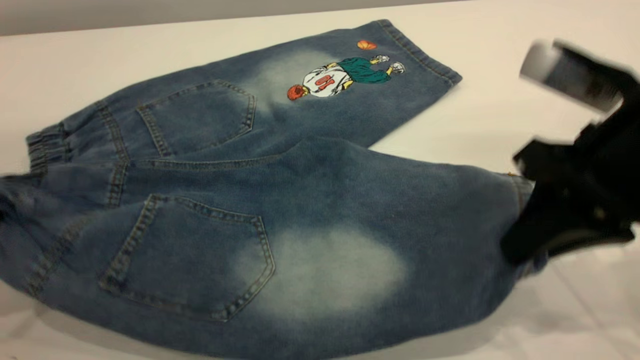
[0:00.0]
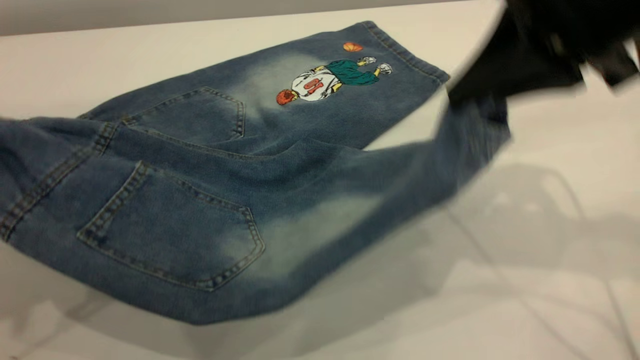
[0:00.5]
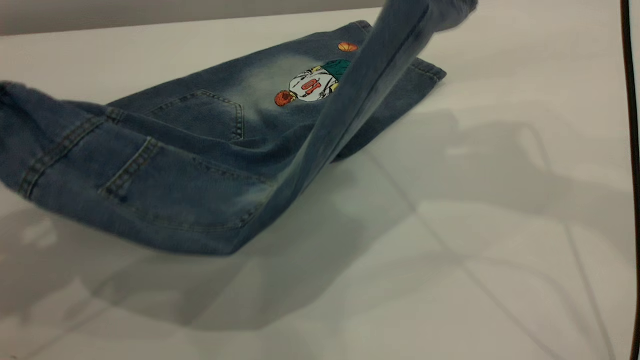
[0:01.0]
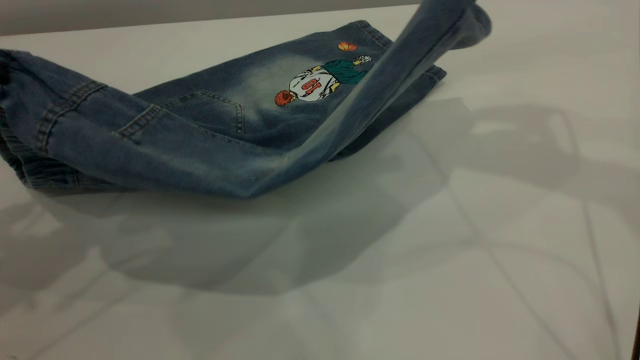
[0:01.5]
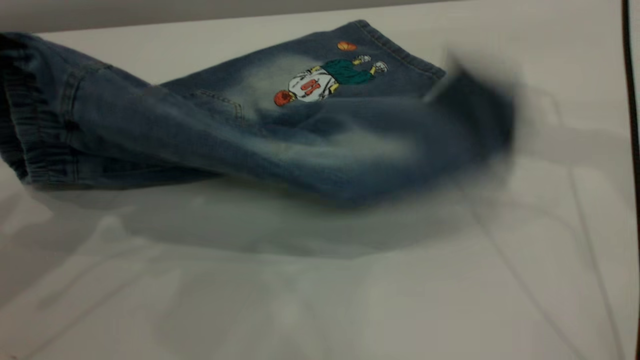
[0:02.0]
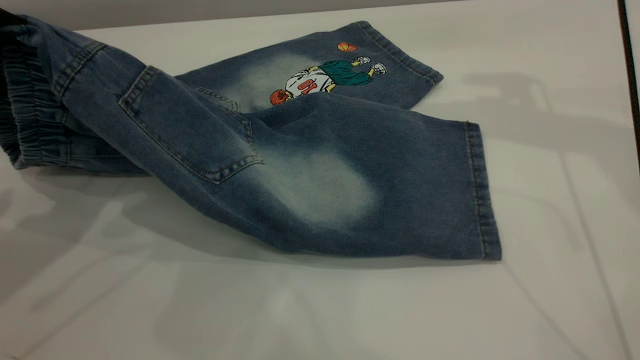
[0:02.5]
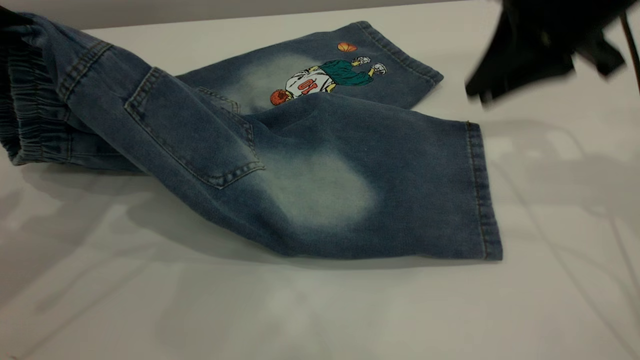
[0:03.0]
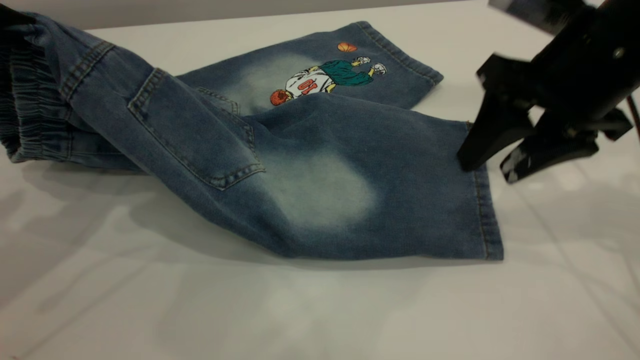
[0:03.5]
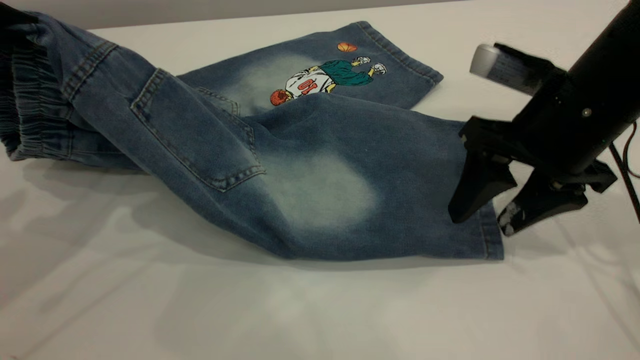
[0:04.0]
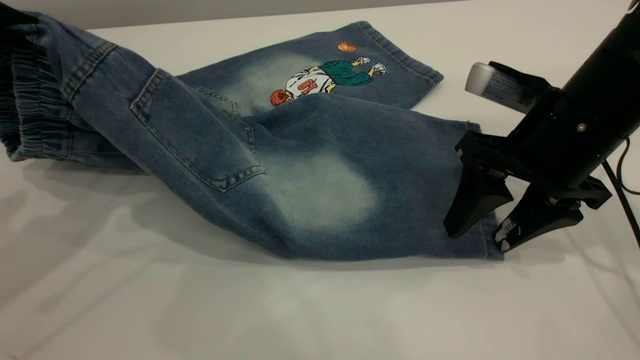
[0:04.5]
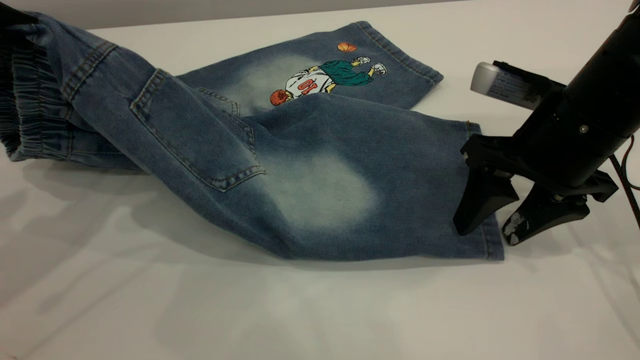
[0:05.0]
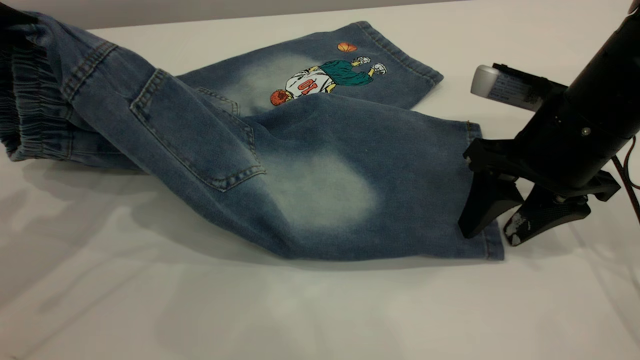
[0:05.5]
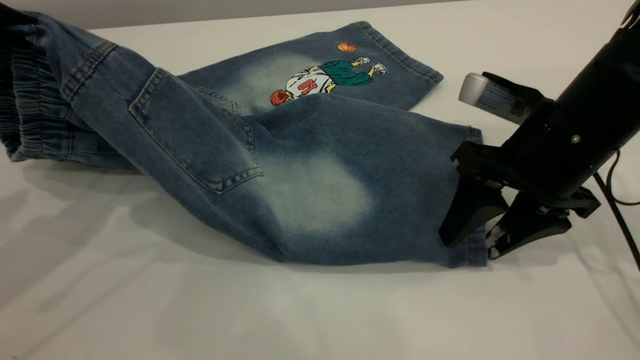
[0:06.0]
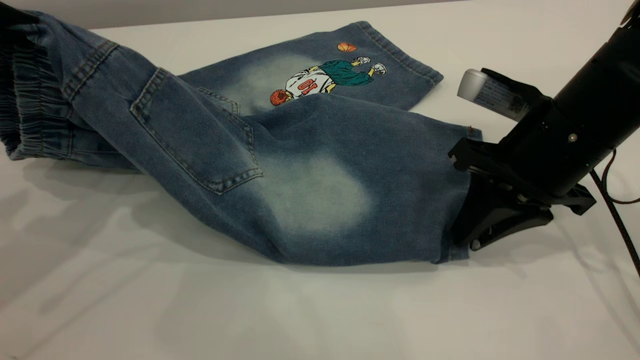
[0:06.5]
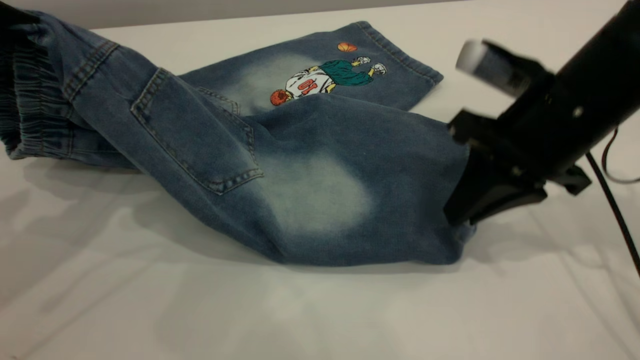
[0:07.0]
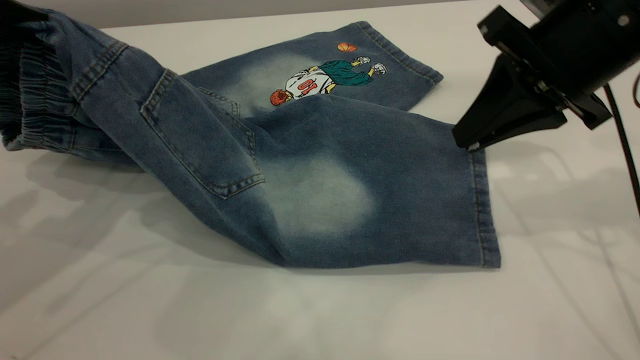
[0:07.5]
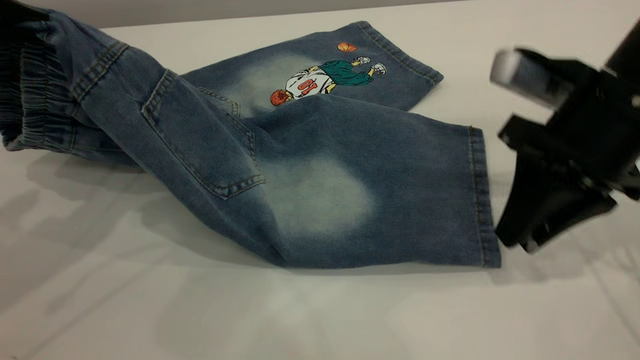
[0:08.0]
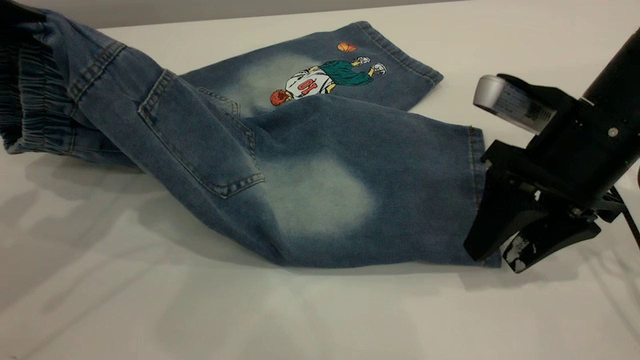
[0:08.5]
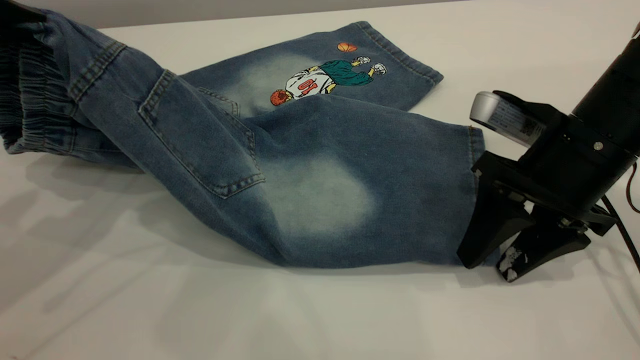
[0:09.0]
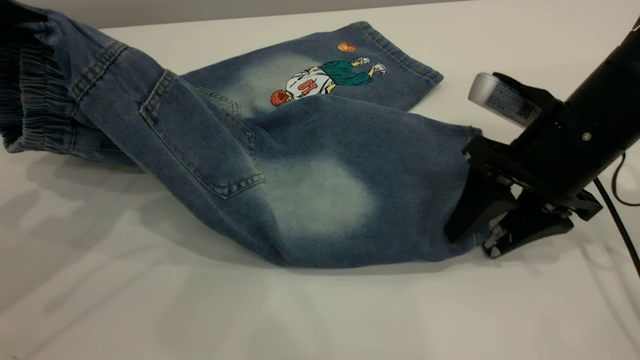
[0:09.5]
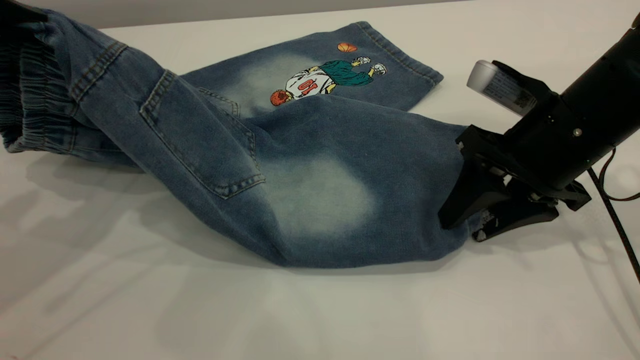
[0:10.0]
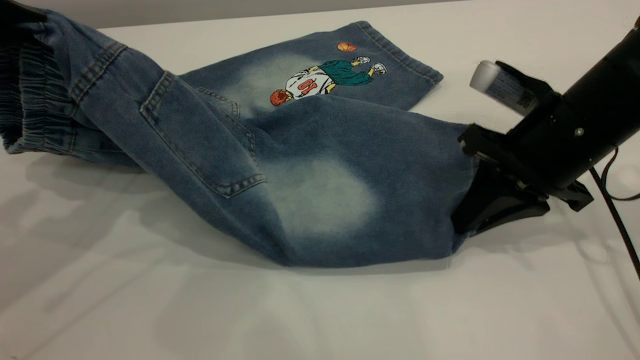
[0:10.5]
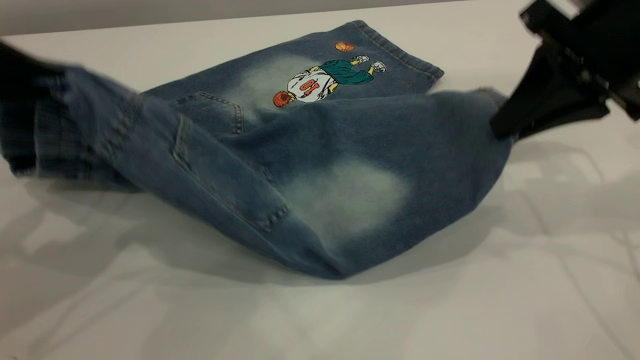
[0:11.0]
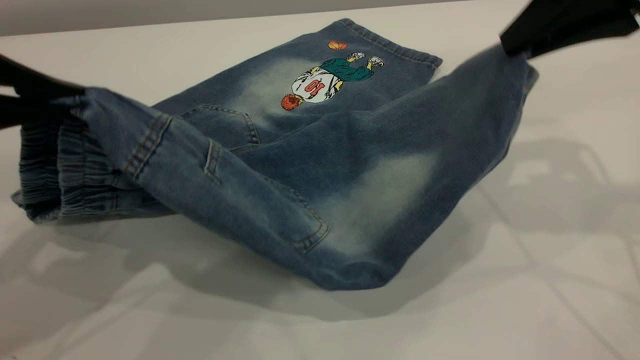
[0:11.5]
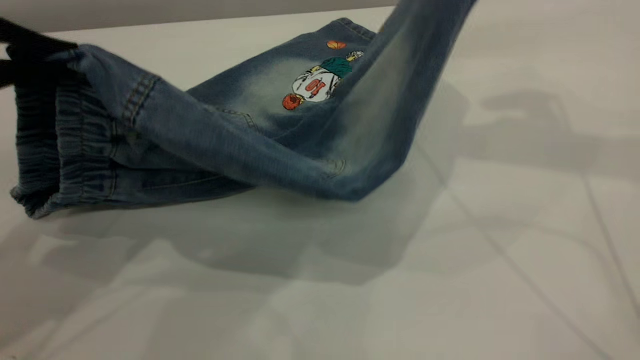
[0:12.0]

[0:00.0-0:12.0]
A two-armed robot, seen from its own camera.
0:00.0 to 0:02.0: The left gripper shifts some 5 cm upward; the right gripper is displaced forward and upward by roughly 20 cm.
0:02.0 to 0:04.0: The right gripper heads downward and backward, covering about 20 cm, and opens its fingers.
0:04.0 to 0:06.0: The grippers move only a little.
0:06.0 to 0:08.0: The right gripper closes its fingers.
0:08.0 to 0:10.0: There are only small adjustments of the grippers.
0:10.0 to 0:12.0: The right gripper is displaced upward by roughly 25 cm, and closes.

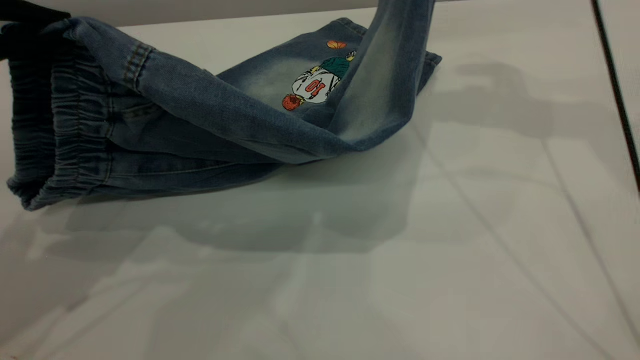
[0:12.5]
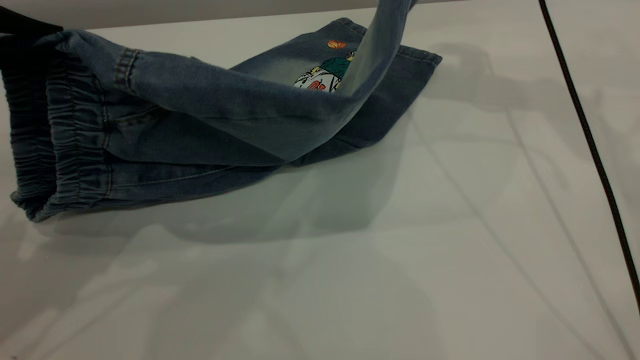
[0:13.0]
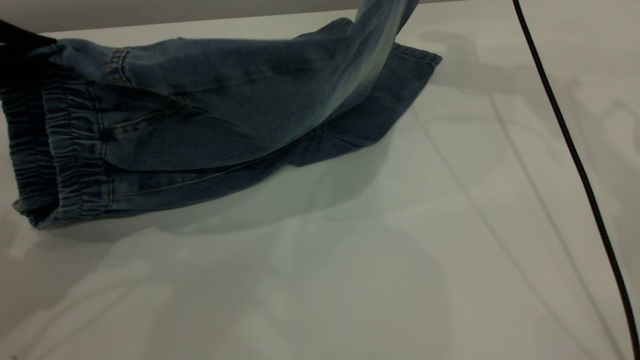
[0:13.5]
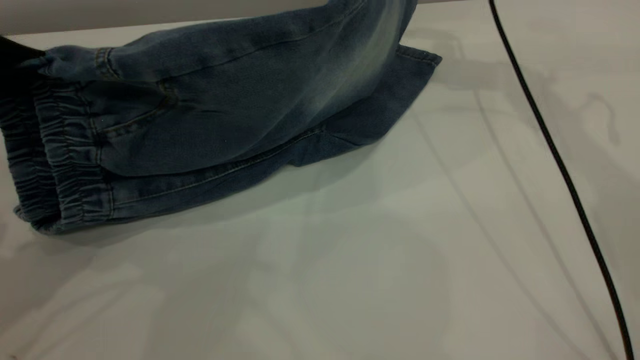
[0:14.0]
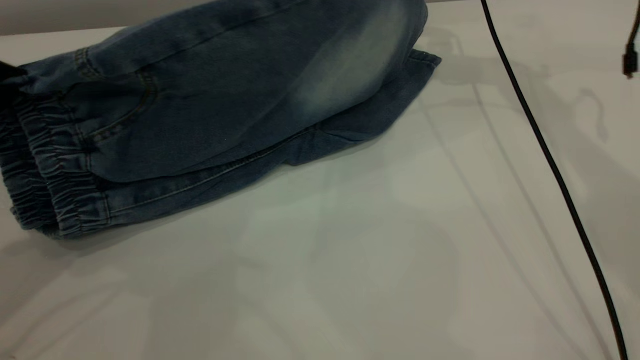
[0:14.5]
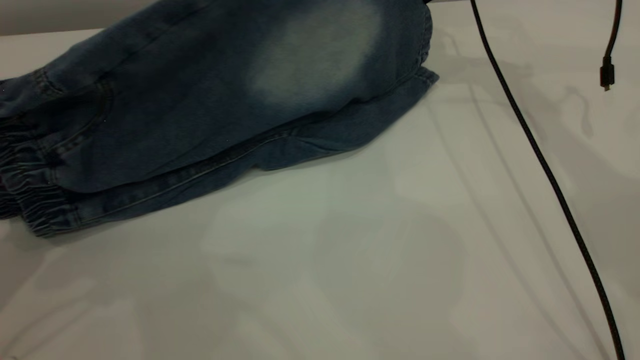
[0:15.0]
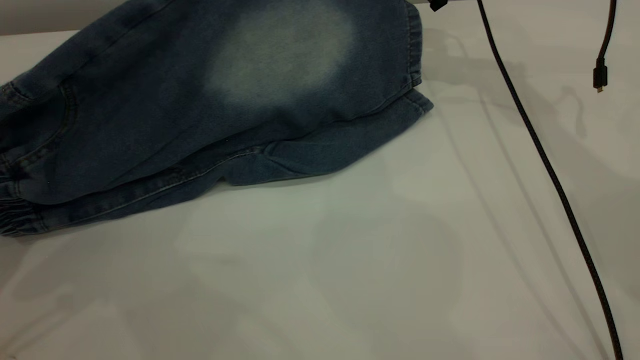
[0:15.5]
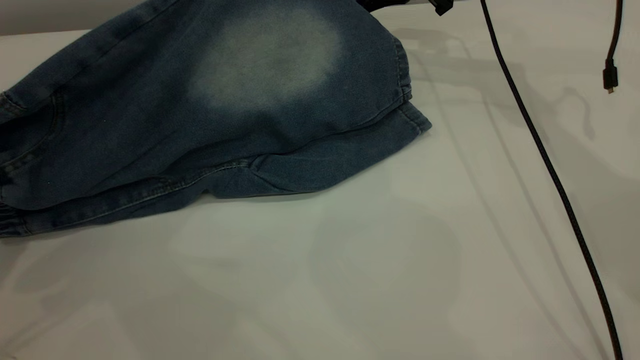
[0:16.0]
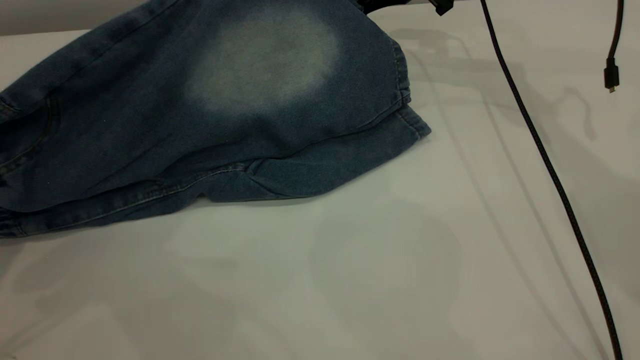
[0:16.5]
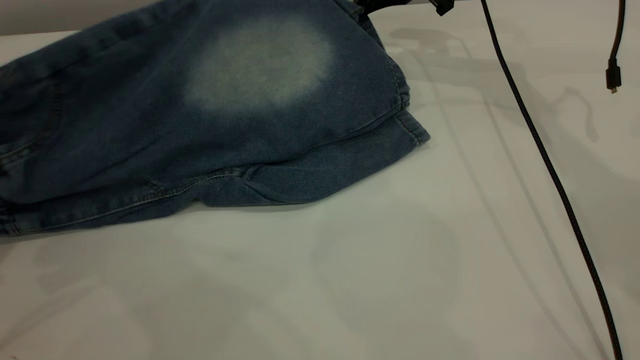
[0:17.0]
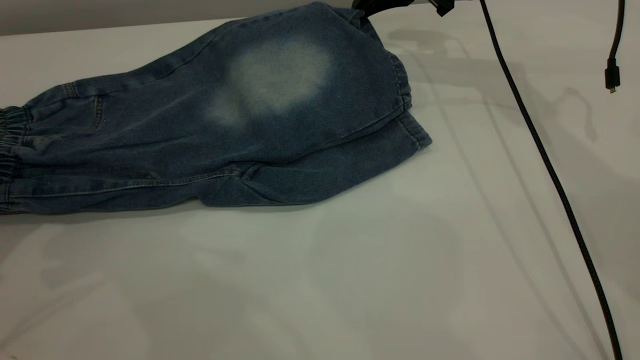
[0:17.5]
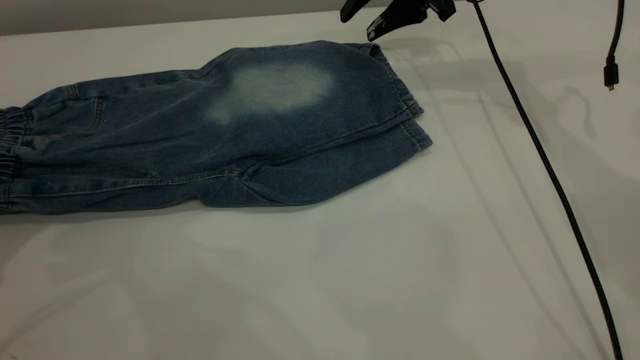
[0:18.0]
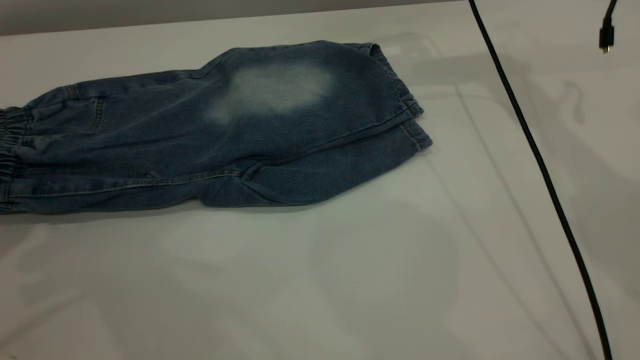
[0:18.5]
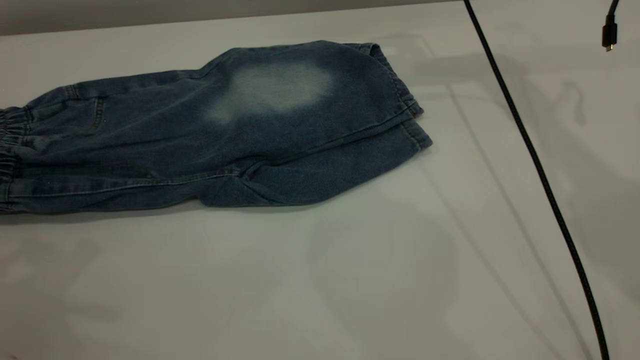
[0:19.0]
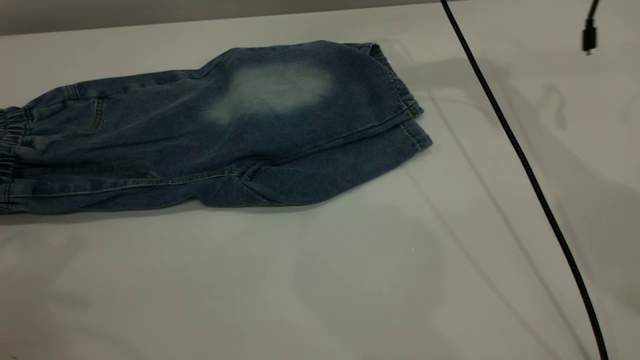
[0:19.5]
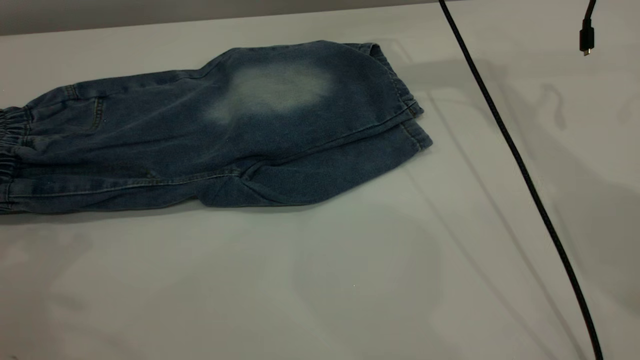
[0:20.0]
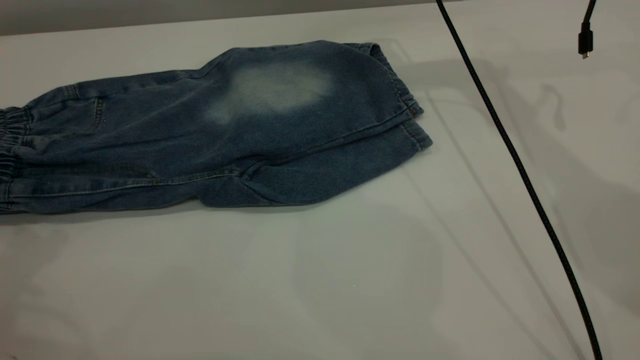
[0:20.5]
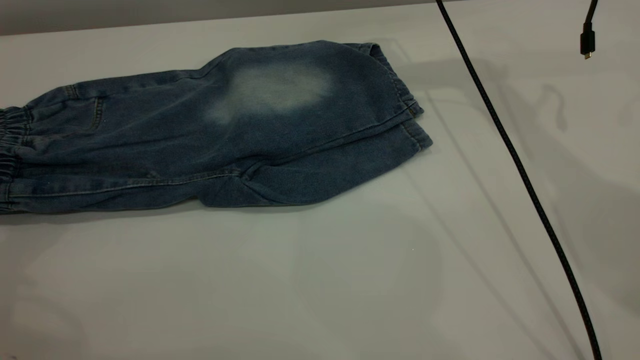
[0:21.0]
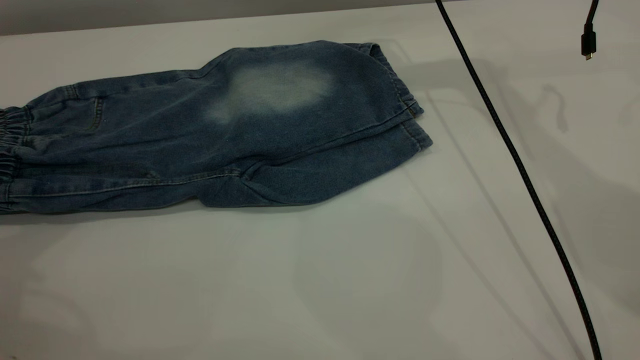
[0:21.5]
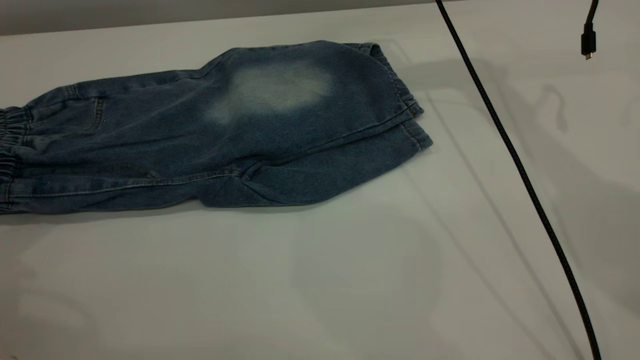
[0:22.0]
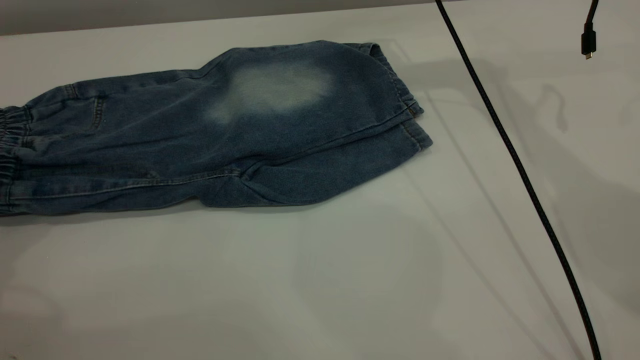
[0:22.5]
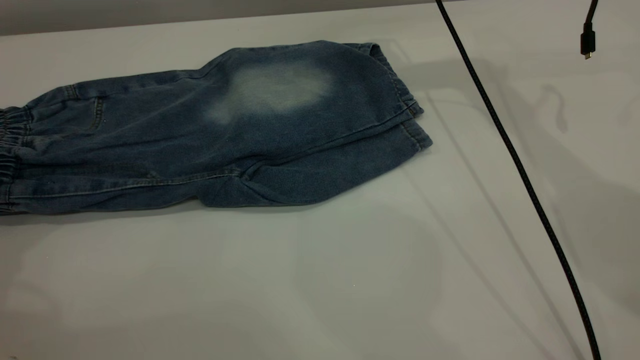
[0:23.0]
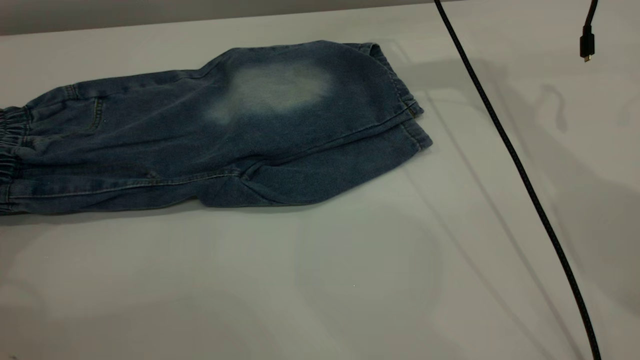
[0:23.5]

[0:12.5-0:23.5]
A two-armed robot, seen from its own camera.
Step, 0:12.5 to 0:18.5: Fold the bottom of the pants upward.
0:12.5 to 0:14.5: The right gripper heads forward and downward, covering approximately 15 cm.
0:16.0 to 0:18.0: The left gripper opens its fingers; the right gripper opens its fingers.
0:18.0 to 0:20.0: The right gripper travels upward by about 5 cm; the left gripper is displaced to the left by some 10 cm.
0:21.5 to 0:23.5: The grippers move only a little.
